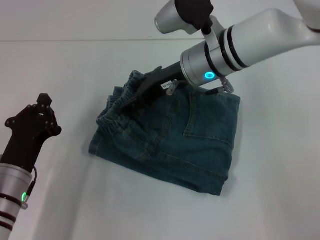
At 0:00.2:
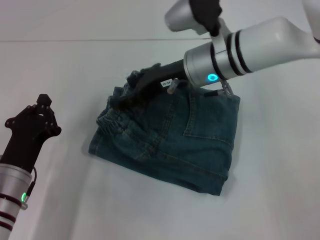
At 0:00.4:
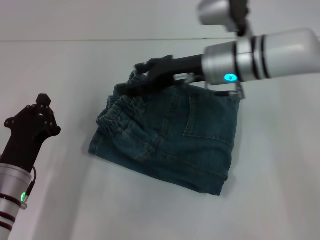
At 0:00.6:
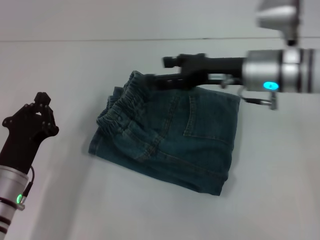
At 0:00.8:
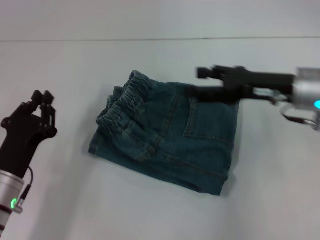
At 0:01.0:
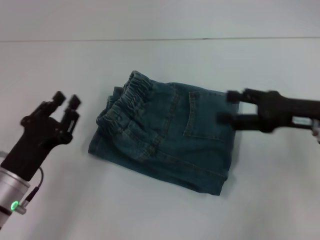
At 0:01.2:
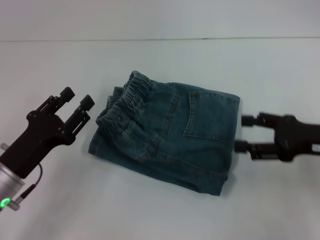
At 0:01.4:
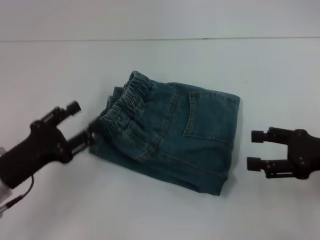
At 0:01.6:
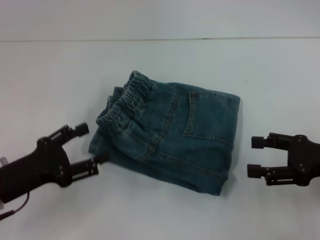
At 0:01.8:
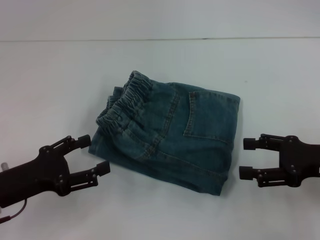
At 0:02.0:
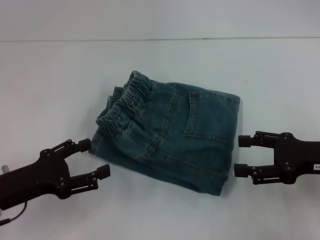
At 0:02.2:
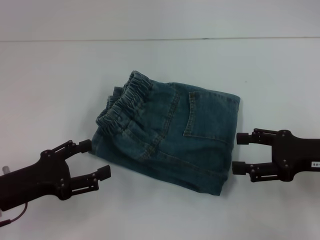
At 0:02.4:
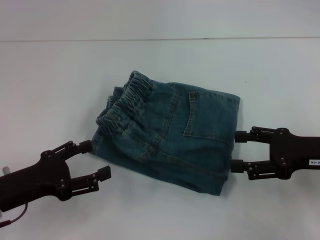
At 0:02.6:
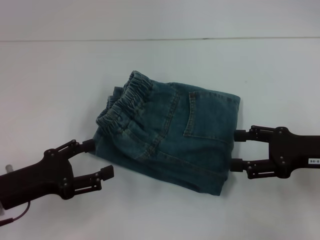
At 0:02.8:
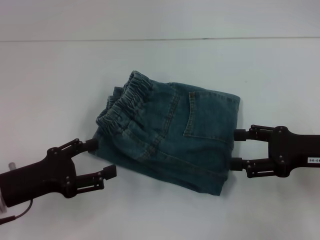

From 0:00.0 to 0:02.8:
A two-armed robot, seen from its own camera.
From 0:00.0 to 0:01.4: The left gripper changes place by some 5 cm, and opens its fingers. The right gripper goes some 30 cm to the right and backward.

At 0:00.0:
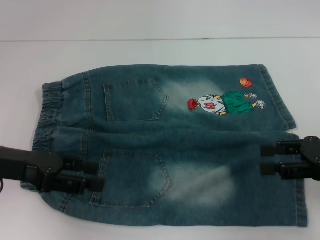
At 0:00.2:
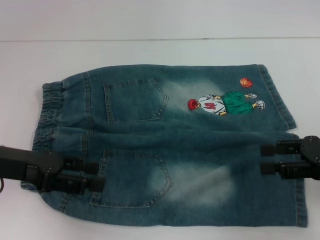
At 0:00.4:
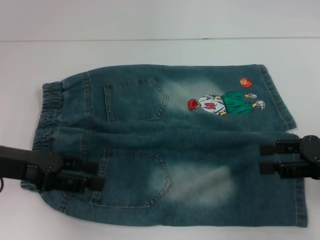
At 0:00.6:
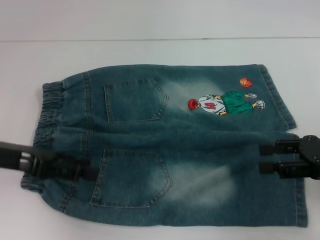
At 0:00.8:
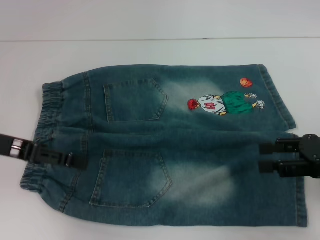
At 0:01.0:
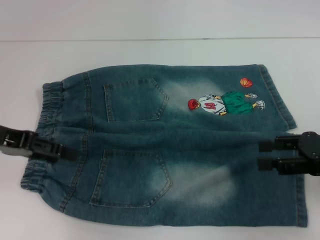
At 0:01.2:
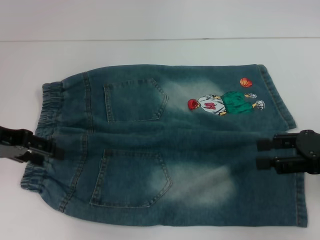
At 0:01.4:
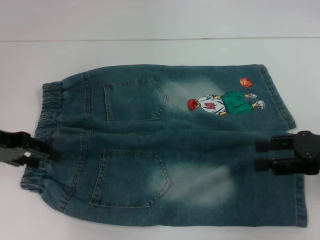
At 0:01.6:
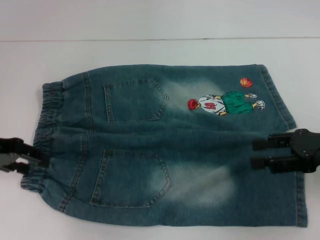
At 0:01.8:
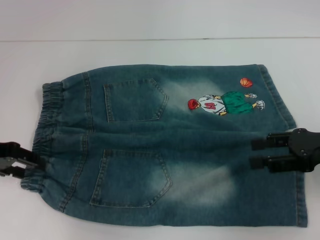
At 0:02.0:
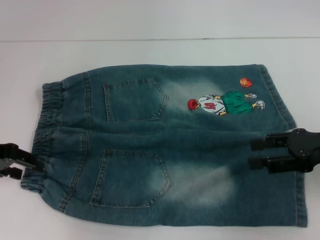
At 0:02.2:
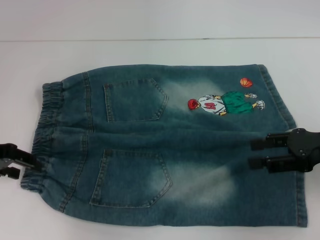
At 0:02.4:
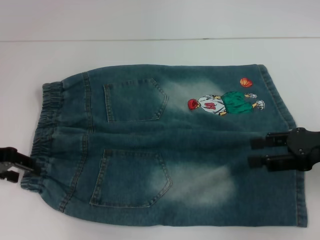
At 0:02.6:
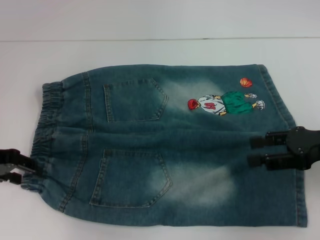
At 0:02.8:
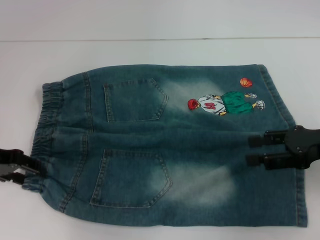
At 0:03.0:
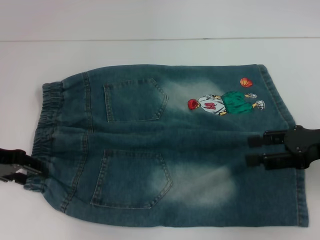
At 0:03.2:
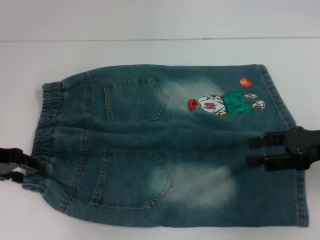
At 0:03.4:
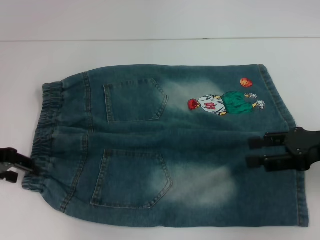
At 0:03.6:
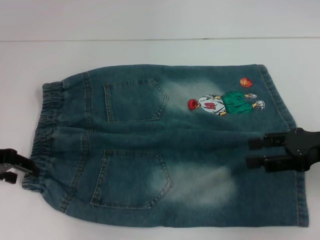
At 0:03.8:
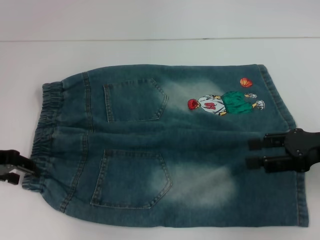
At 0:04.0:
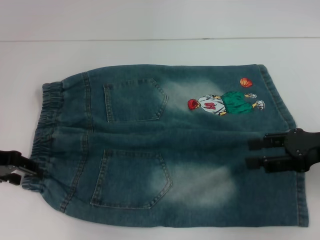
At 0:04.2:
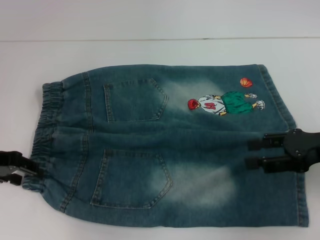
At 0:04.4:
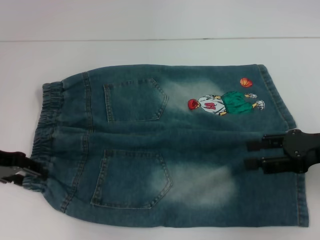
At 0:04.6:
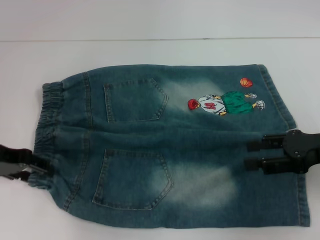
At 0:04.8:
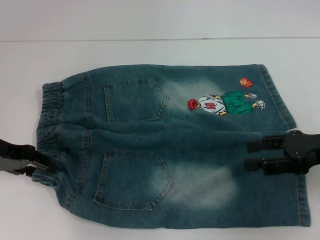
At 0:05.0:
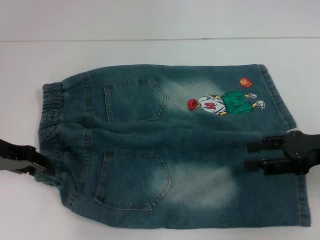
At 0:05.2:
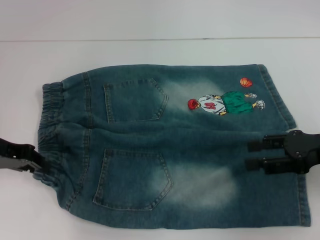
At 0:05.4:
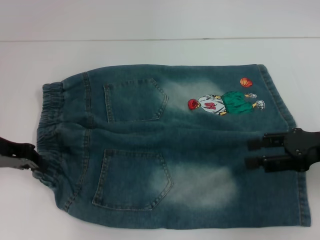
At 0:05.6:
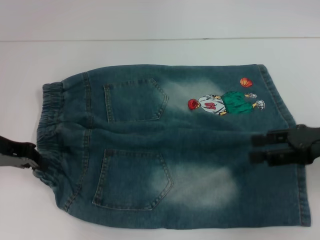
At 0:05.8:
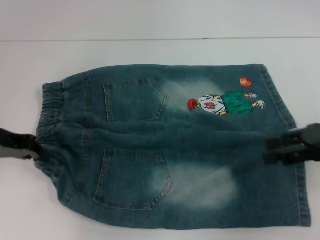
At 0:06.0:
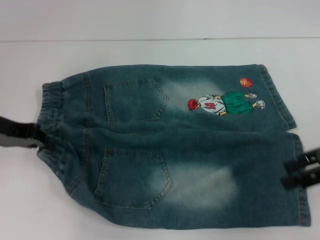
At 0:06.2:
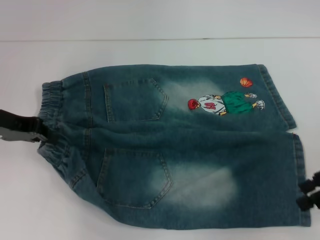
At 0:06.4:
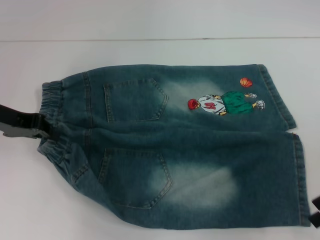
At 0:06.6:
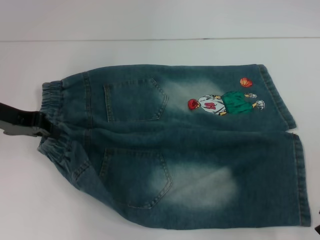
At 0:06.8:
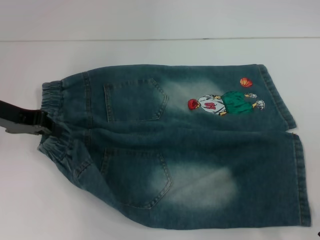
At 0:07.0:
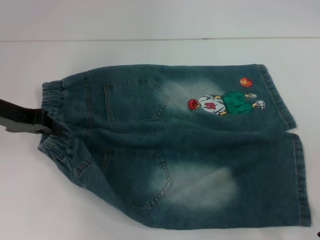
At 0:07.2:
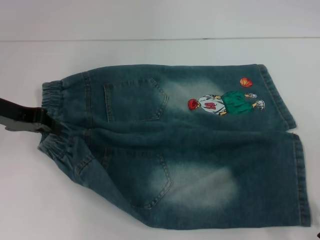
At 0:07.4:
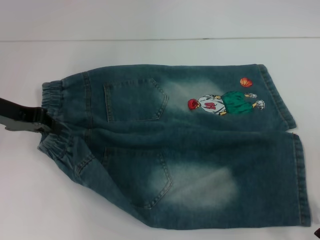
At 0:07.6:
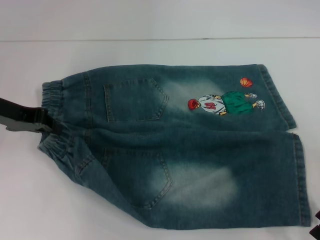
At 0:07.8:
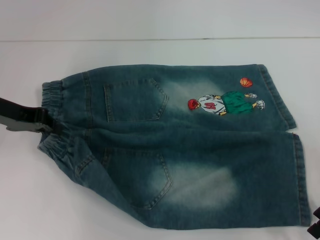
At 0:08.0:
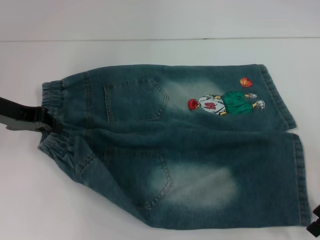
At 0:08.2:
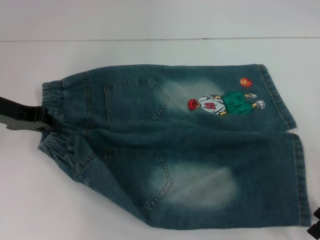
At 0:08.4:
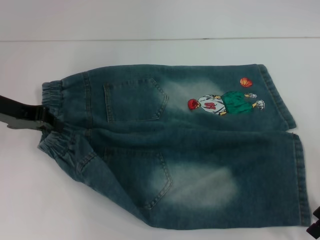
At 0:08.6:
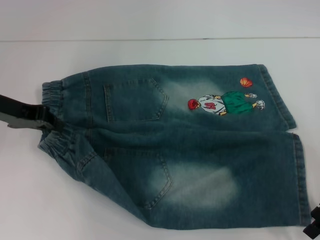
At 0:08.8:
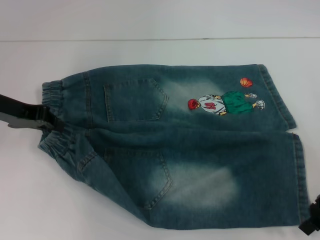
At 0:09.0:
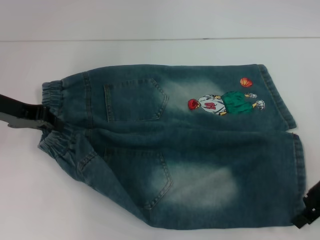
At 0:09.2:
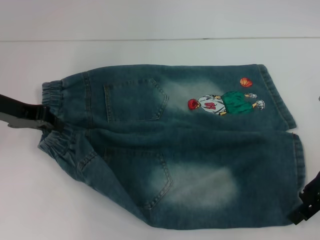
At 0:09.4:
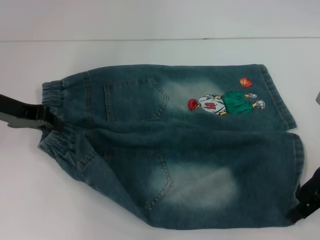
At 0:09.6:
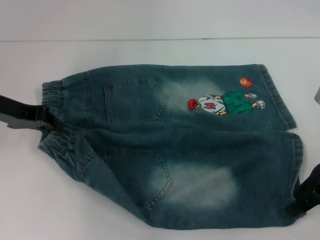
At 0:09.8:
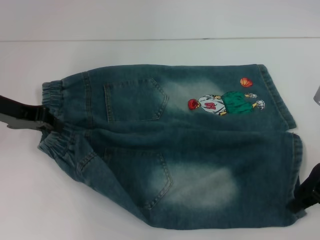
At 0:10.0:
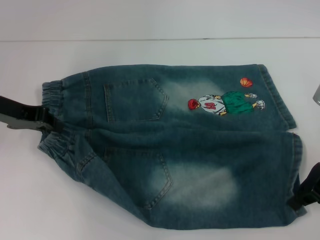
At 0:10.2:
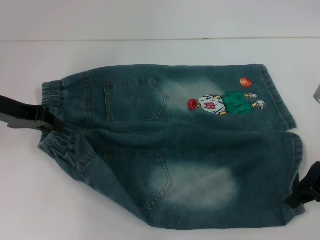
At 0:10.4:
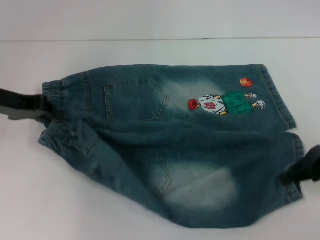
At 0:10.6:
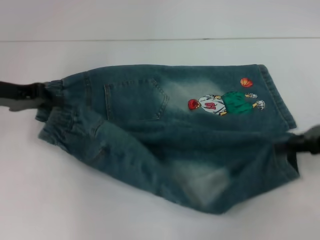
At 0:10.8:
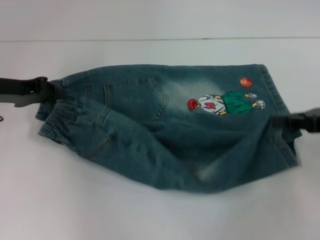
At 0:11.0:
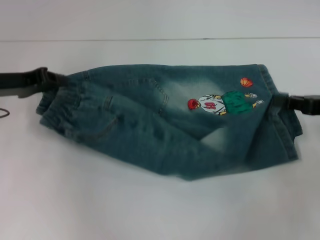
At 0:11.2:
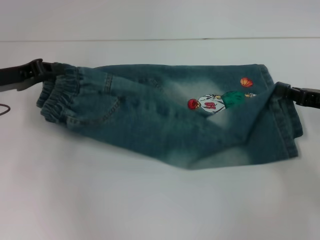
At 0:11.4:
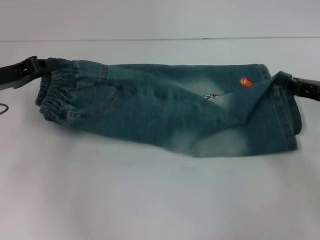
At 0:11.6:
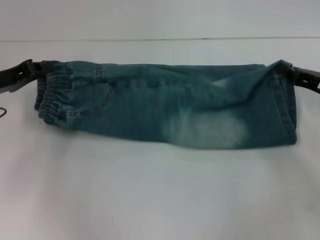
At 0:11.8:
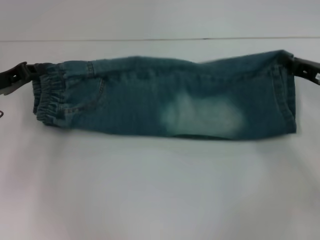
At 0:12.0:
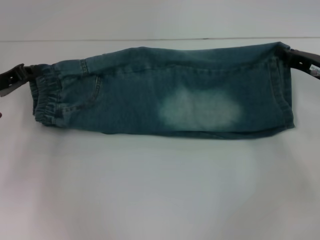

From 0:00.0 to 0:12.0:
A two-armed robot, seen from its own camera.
Step, from 0:00.0 to 0:05.4: Hold the lower left waistband with your left hand.
Step, from 0:05.6 to 0:09.6: Grab the lower right pant leg with your right hand.
From 0:00.0 to 0:01.6: The left gripper moves about 5 cm.
From 0:01.6 to 0:03.0: The grippers make only small movements.
From 0:03.0 to 0:04.4: Both grippers stay put.
From 0:04.4 to 0:06.0: The left gripper closes up.
From 0:07.6 to 0:09.0: The grippers make only small movements.
From 0:09.0 to 0:10.4: The right gripper closes.
From 0:10.4 to 0:12.0: The right gripper travels forward by roughly 5 cm, while the left gripper goes roughly 5 cm downward.

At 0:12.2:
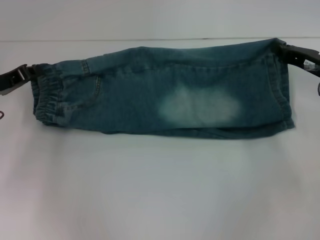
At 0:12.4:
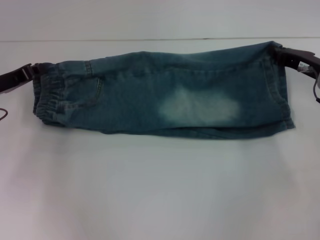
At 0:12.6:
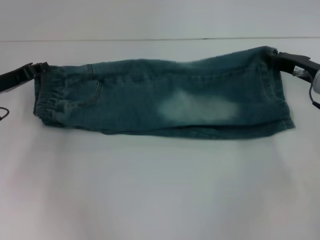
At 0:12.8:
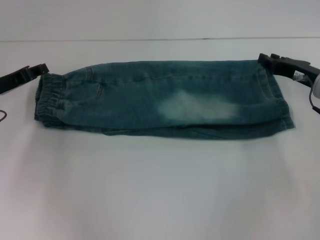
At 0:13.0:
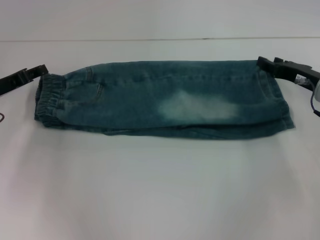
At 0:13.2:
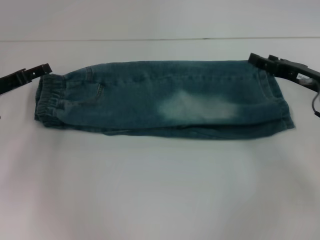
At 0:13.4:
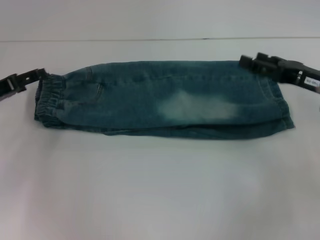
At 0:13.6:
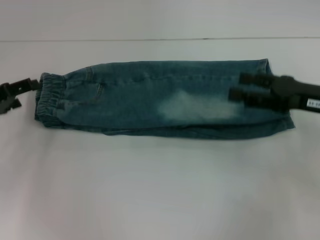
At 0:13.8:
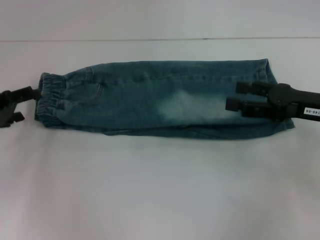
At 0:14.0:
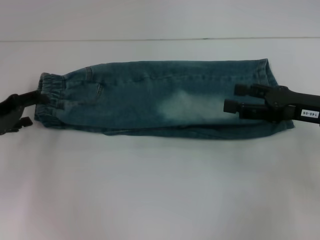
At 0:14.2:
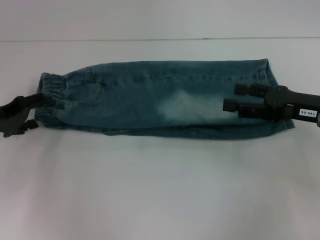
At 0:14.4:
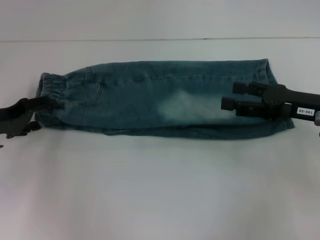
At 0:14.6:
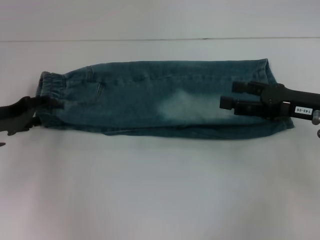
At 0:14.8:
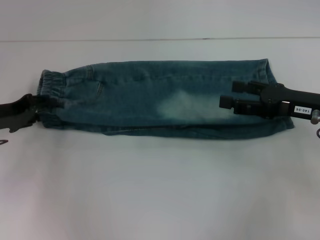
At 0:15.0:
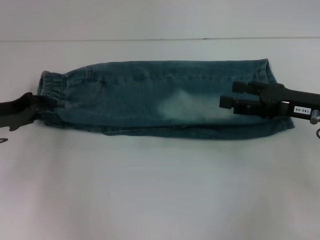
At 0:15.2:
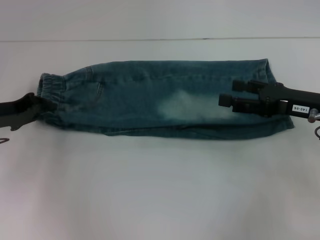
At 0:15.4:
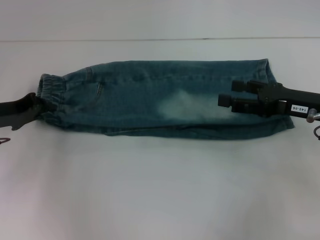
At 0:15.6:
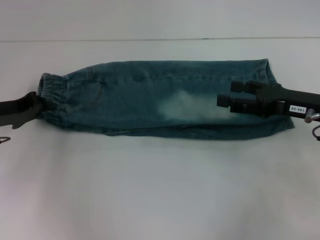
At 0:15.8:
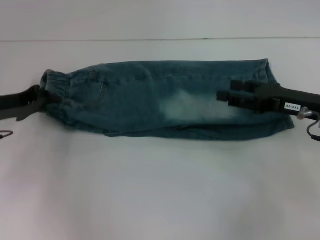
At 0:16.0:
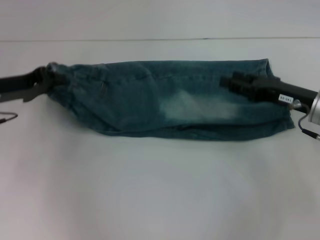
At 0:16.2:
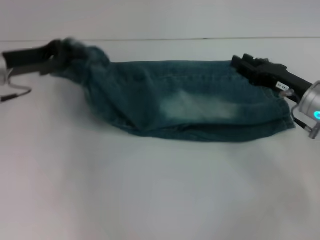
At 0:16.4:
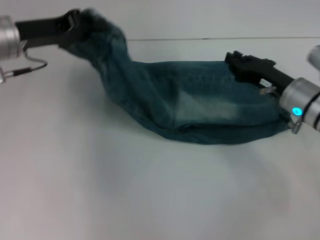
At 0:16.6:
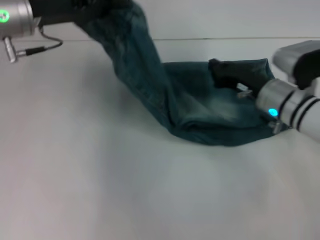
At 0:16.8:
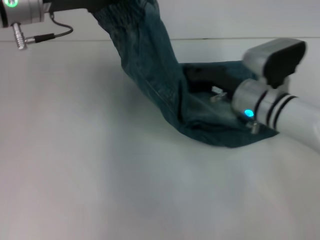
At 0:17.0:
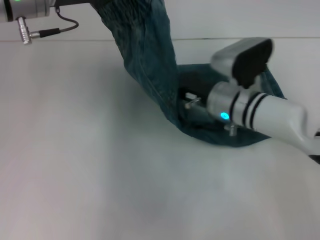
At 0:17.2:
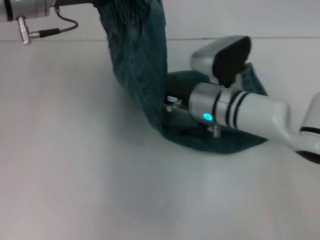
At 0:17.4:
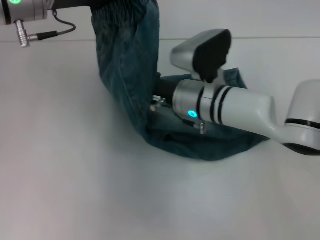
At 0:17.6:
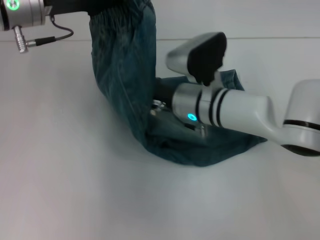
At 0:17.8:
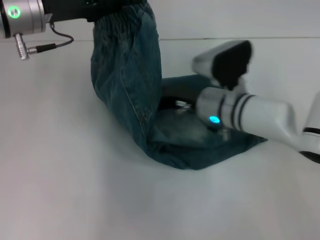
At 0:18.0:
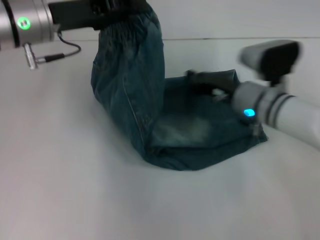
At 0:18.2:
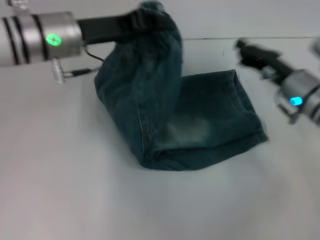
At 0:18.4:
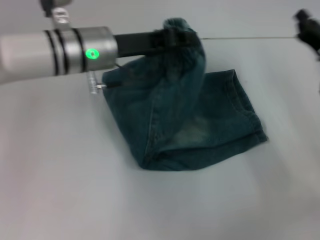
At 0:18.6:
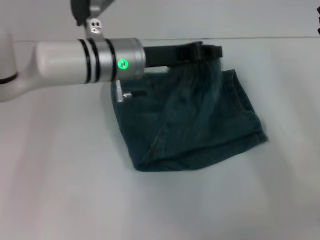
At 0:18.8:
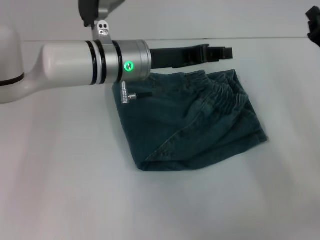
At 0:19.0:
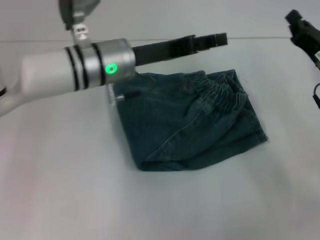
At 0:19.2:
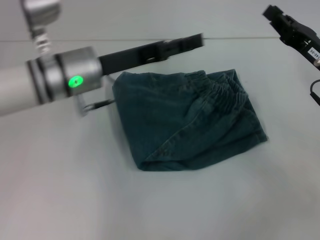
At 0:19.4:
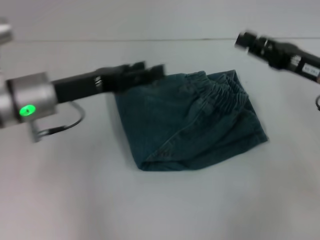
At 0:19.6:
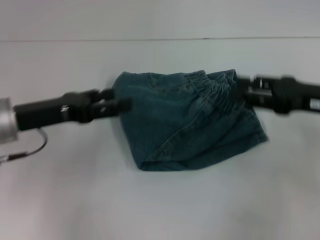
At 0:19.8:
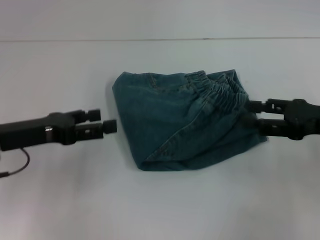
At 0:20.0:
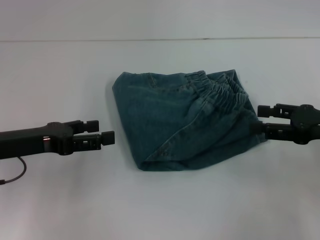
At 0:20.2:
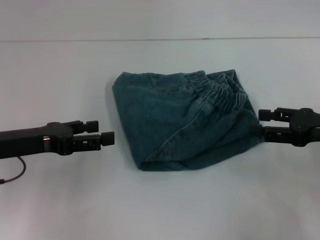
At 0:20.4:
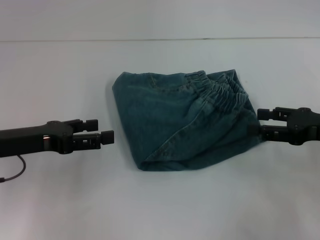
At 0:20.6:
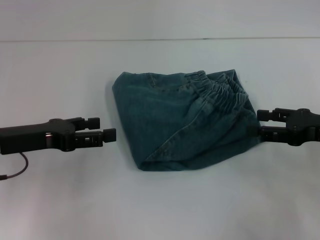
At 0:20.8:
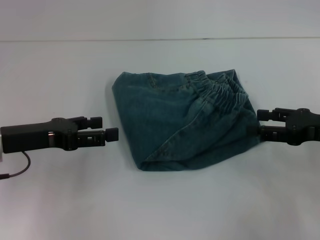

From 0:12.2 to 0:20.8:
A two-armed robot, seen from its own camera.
Step, from 0:12.8 to 0:15.4: Grab the waistband with your right hand.
Step, from 0:15.6 to 0:17.6: Press the middle of the pants with your left hand.
Step, from 0:17.8 to 0:18.6: Fold to the left with your right hand.
From 0:12.2 to 0:13.6: The right gripper heads backward, covering about 5 cm, and opens up. The left gripper opens.
From 0:13.6 to 0:15.0: The left gripper closes up.
From 0:15.0 to 0:16.6: The right gripper travels to the left, downward and forward by approximately 10 cm, and closes up, while the left gripper is displaced upward, to the right and forward by some 15 cm, and closes.
From 0:16.6 to 0:18.0: The right gripper travels to the left and back again, some 15 cm each way.
From 0:18.0 to 0:19.4: The left gripper moves downward and backward, about 10 cm, moves approximately 10 cm to the right and comes back, and opens its fingers. The right gripper goes roughly 15 cm to the right and upward.
From 0:19.4 to 0:20.8: The left gripper is displaced to the left and backward by approximately 10 cm, while the right gripper ends up approximately 5 cm from where it was, and opens up.
